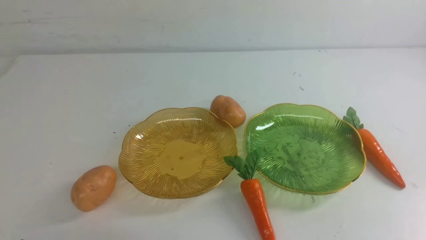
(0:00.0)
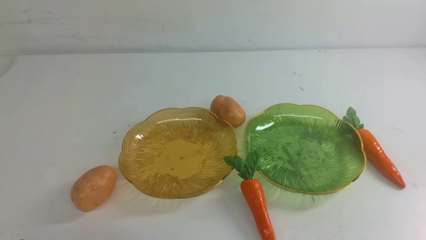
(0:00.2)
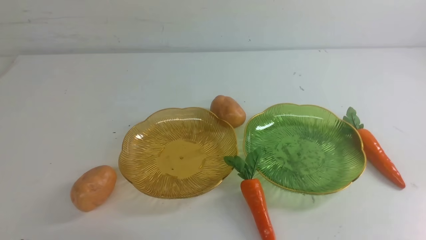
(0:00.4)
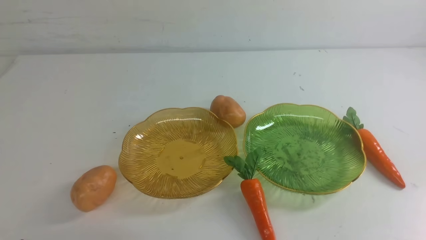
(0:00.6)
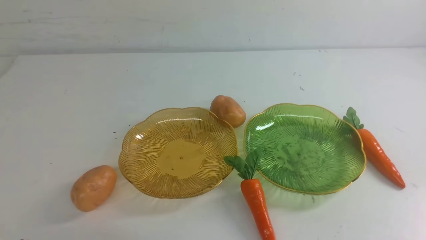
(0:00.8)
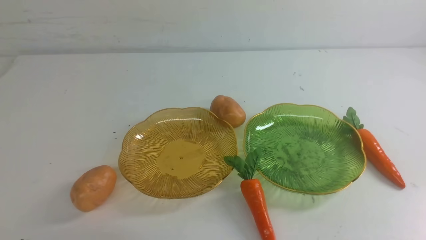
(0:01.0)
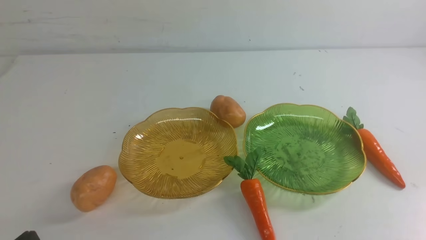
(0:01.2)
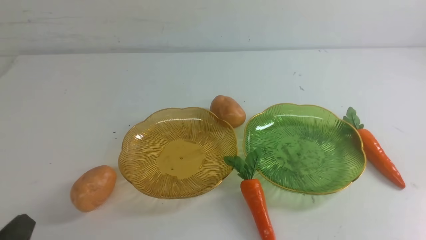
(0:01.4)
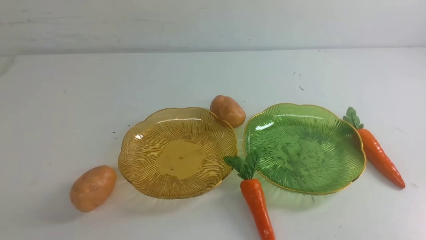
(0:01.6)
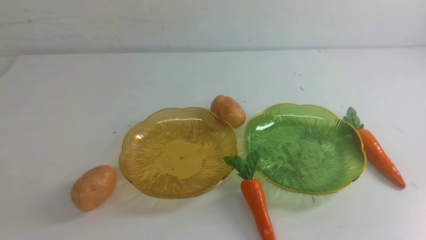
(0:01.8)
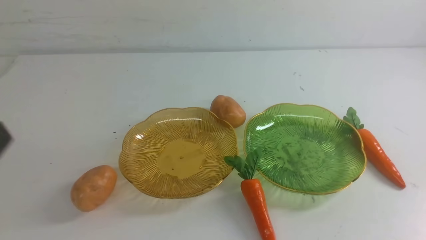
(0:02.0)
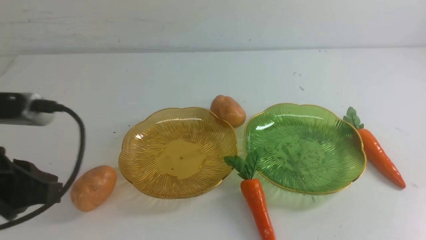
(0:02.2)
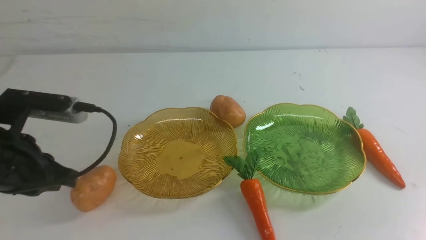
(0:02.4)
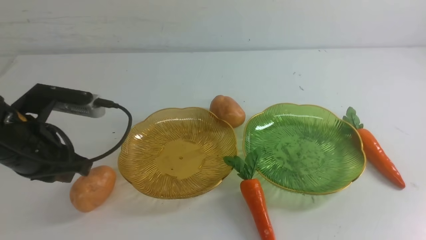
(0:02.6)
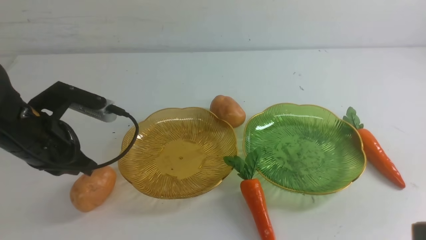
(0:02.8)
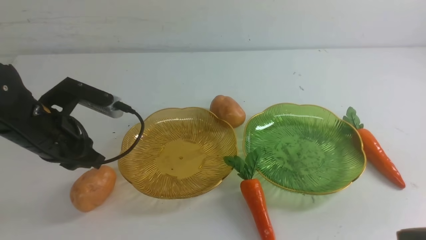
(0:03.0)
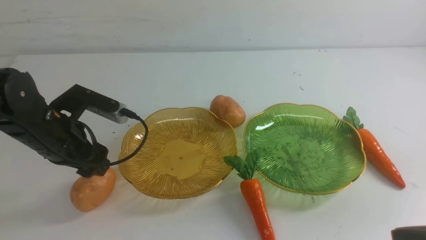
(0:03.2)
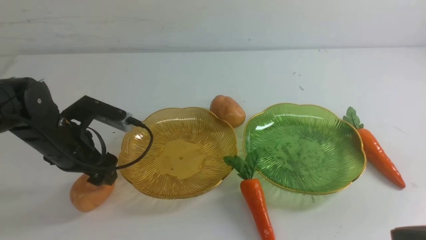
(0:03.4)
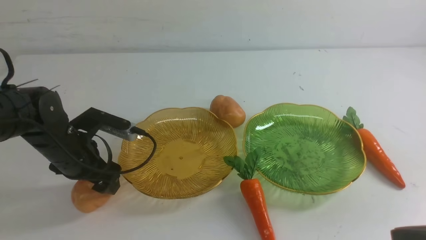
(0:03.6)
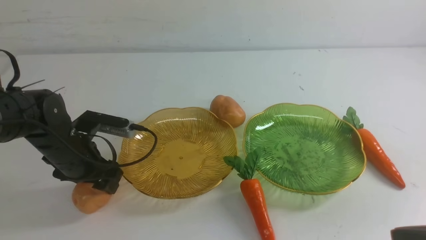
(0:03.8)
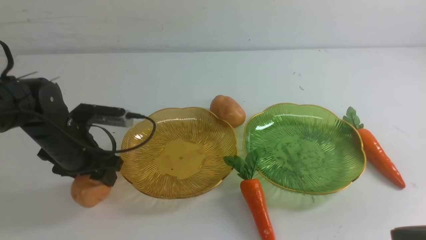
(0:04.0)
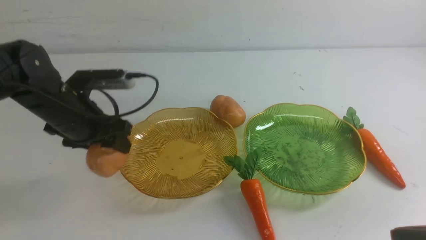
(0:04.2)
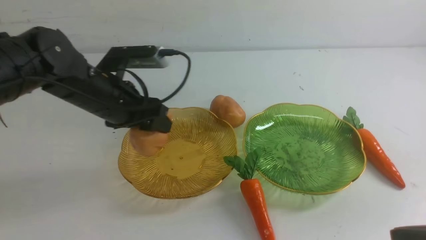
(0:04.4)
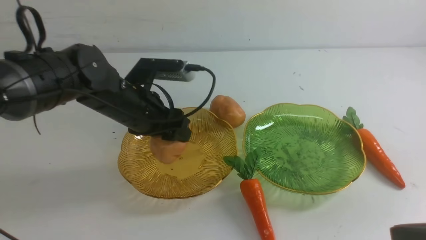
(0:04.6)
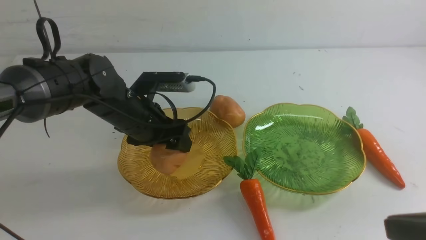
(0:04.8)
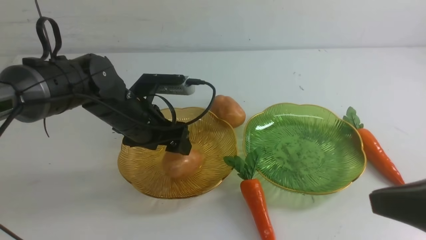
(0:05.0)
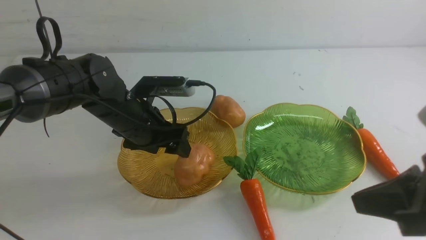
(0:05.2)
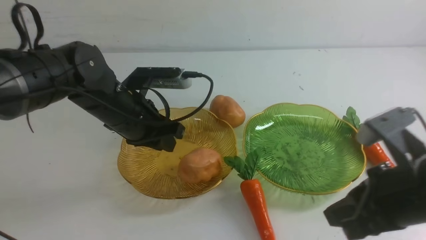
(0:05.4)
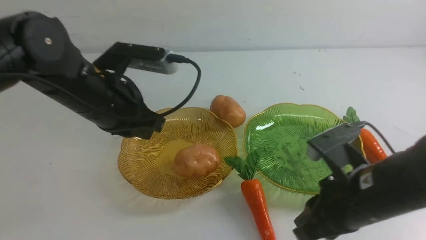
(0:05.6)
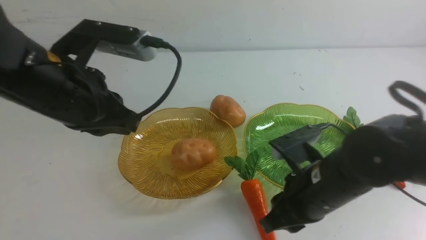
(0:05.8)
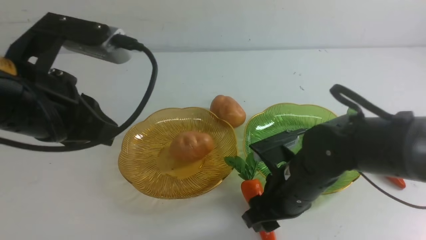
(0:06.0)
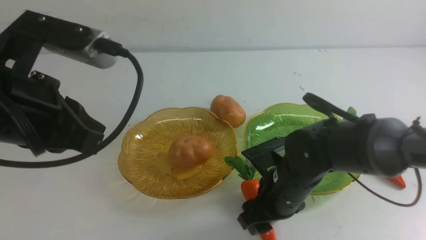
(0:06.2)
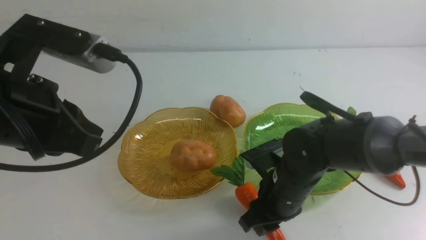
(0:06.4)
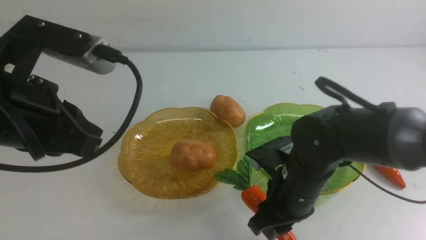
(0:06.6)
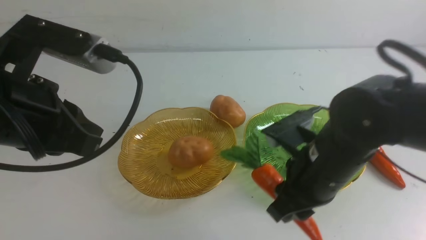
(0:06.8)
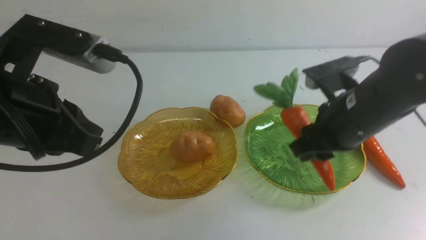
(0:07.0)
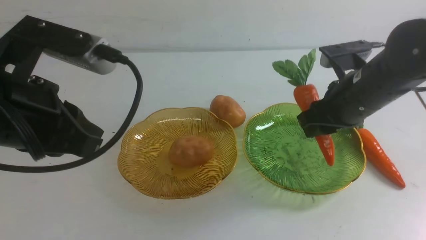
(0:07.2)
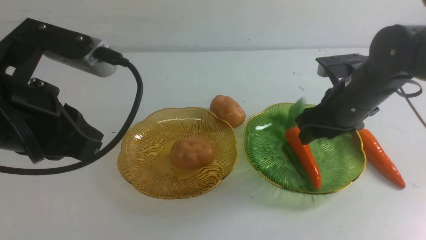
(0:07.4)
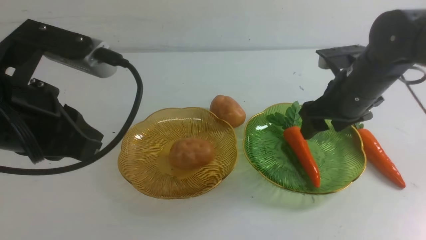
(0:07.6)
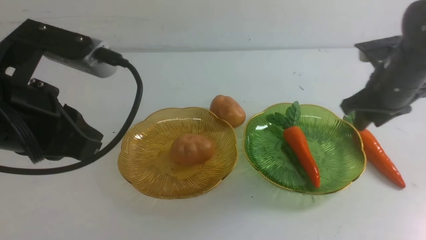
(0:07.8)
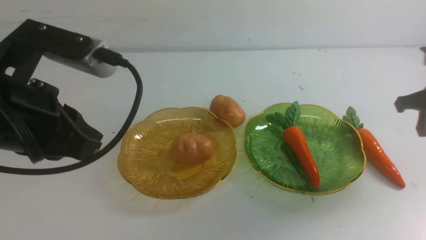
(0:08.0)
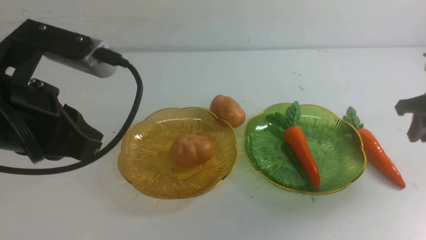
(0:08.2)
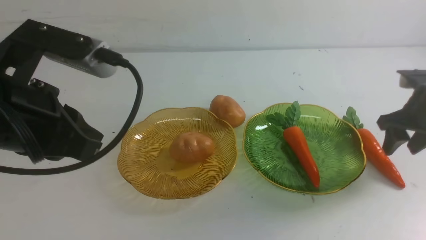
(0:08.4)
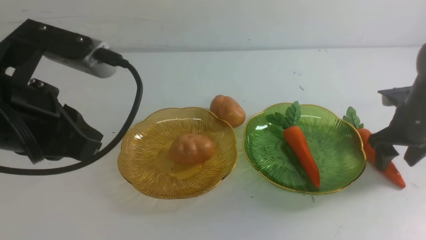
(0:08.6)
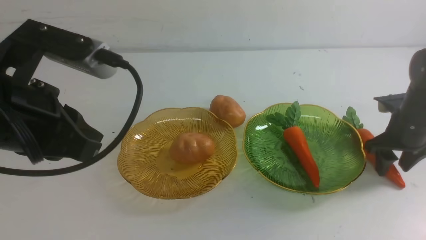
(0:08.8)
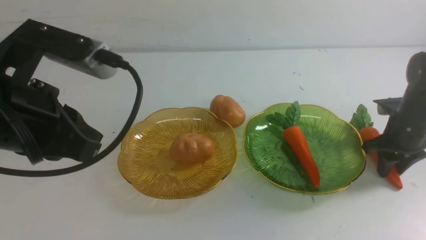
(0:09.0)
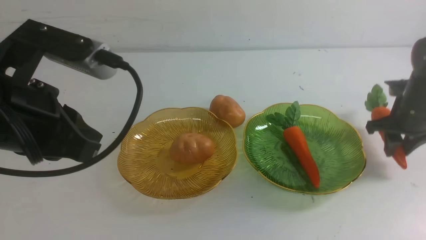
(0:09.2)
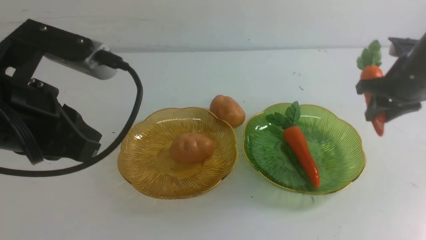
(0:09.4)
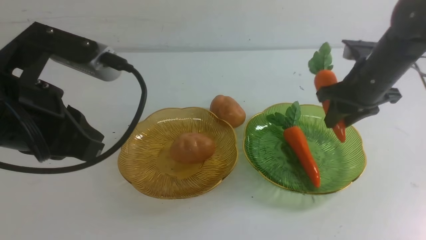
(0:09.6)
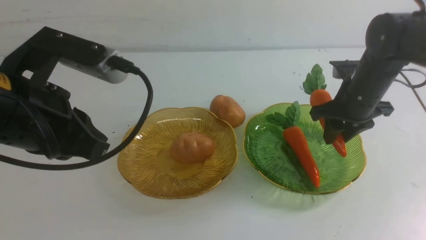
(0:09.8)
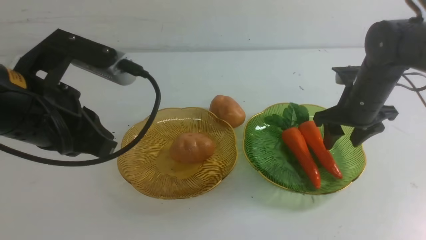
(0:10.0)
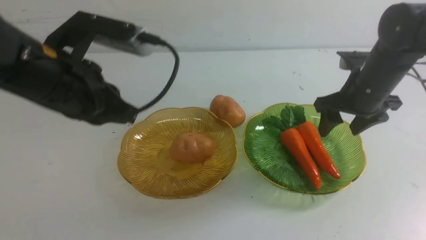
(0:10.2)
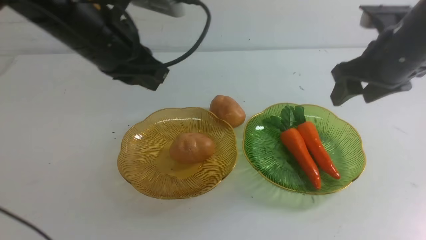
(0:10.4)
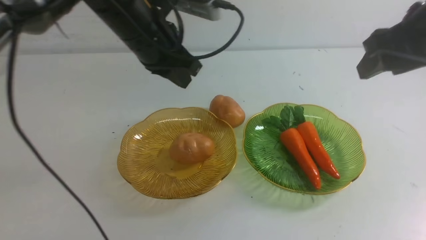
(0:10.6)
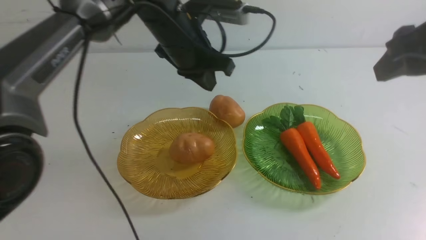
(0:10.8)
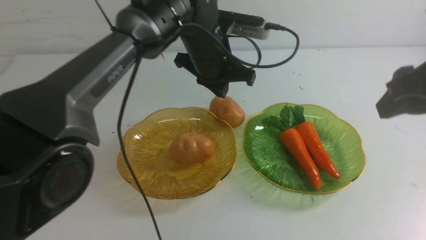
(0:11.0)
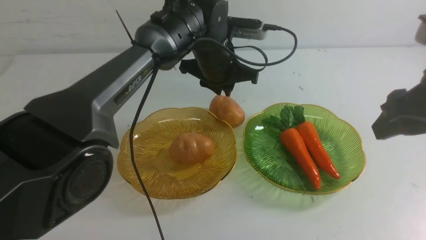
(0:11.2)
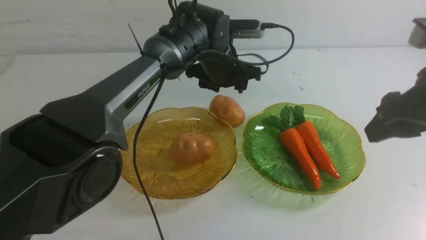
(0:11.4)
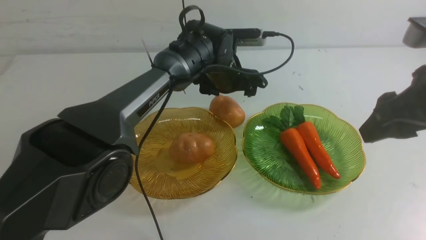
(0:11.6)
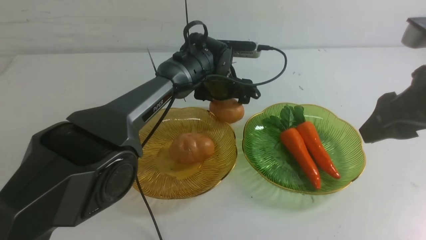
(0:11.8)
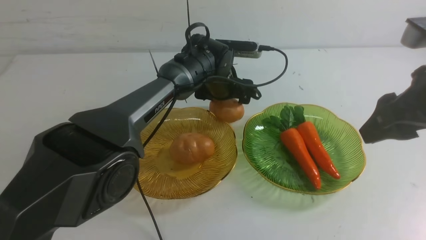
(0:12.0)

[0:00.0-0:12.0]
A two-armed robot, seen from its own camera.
Step, 0:00.0 to 0:05.2: Grab a potato with your left arm and put it on the left plate.
Step, 0:05.4 to 0:10.2: use the right arm to grab a carrot and put it into the right plate.
0:01.6 to 0:03.0: The left gripper goes roughly 25 cm forward.
0:03.0 to 0:04.4: The left gripper shifts approximately 10 cm to the right and forward.
0:04.4 to 0:06.0: The right gripper is displaced forward, to the left and downward by roughly 25 cm, and opens up; the left gripper moves backward and upward, roughly 20 cm, and closes up.
0:06.0 to 0:07.6: The right gripper travels to the right and forward by about 25 cm, and closes up.
0:07.6 to 0:09.0: The right gripper goes about 5 cm to the left, goes downward and returns, some 10 cm each way, and opens and closes again.
0:09.0 to 0:10.4: The left gripper heads forward and to the right, covering roughly 20 cm. Meanwhile the right gripper moves upward and backward, some 15 cm, and opens.
0:10.4 to 0:12.0: The right gripper moves backward, some 5 cm. Meanwhile the left gripper heads downward, forward and to the right, covering roughly 20 cm, and opens up.

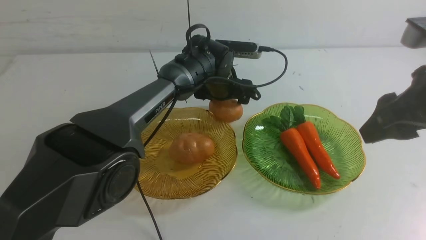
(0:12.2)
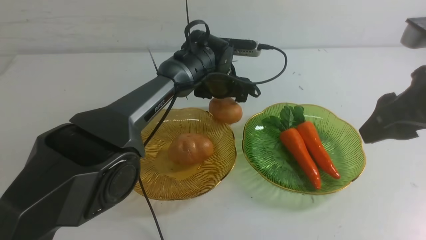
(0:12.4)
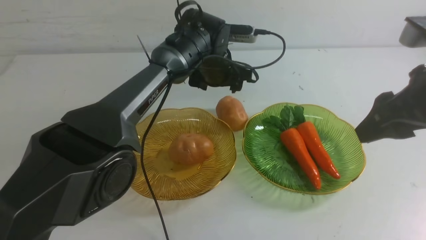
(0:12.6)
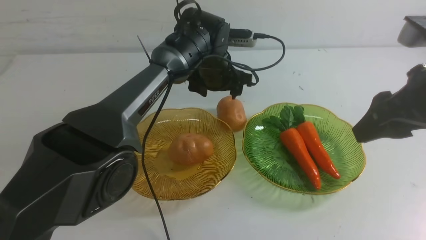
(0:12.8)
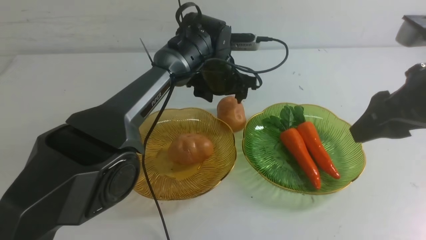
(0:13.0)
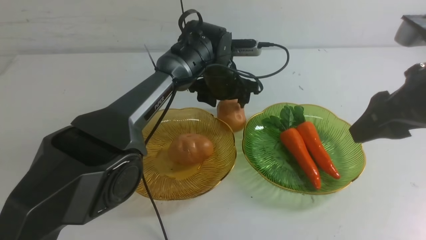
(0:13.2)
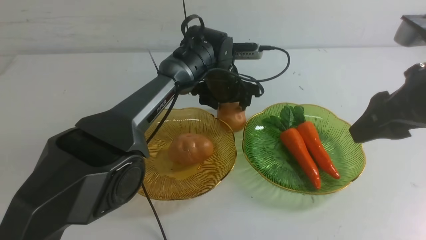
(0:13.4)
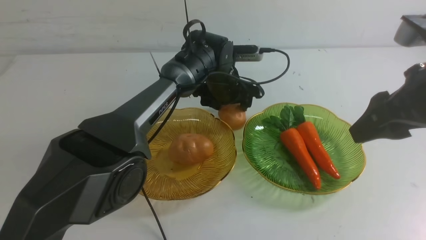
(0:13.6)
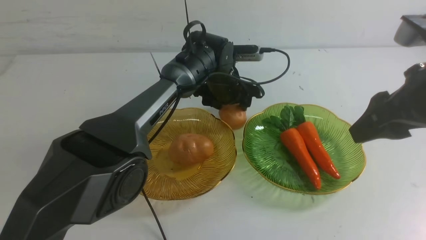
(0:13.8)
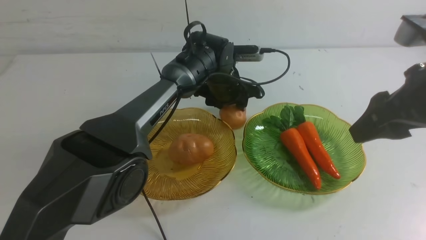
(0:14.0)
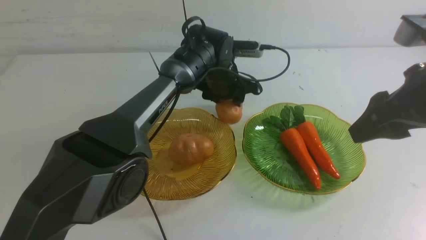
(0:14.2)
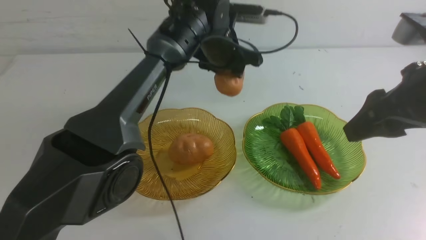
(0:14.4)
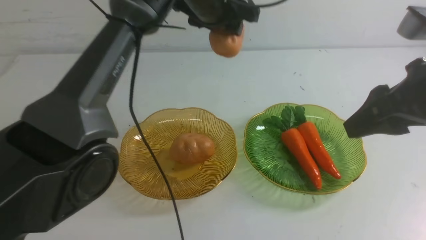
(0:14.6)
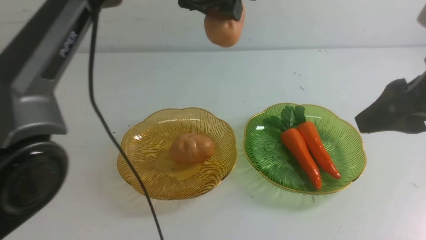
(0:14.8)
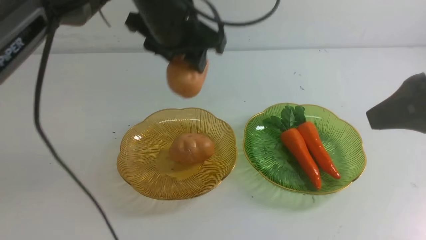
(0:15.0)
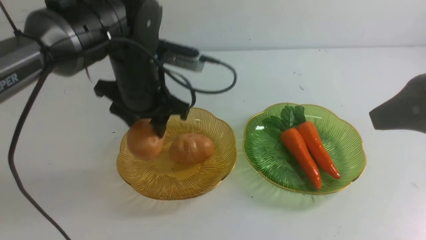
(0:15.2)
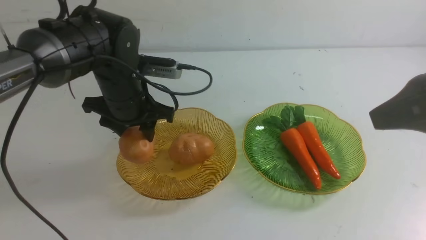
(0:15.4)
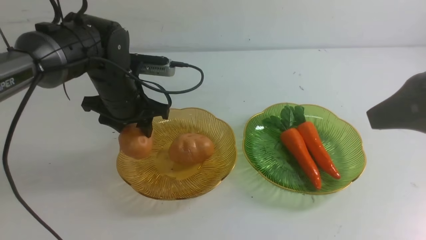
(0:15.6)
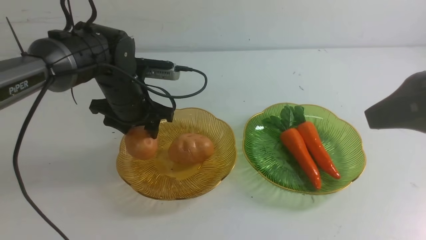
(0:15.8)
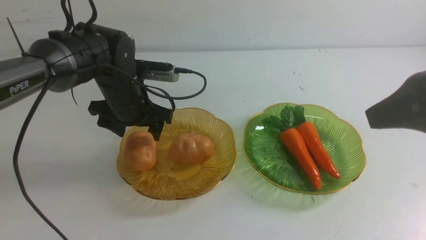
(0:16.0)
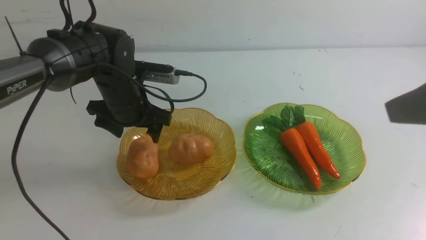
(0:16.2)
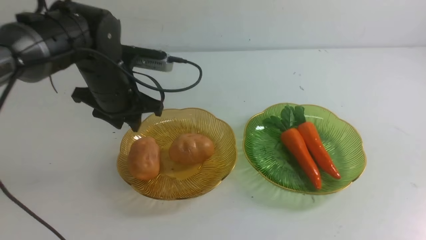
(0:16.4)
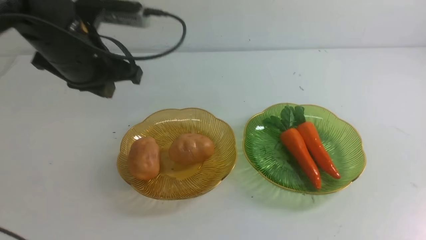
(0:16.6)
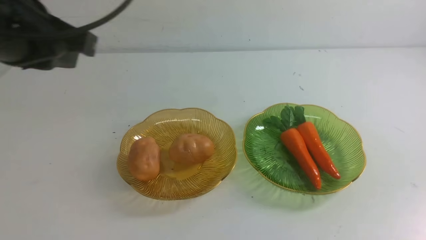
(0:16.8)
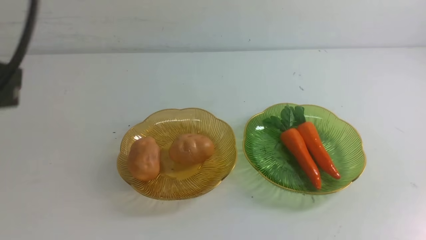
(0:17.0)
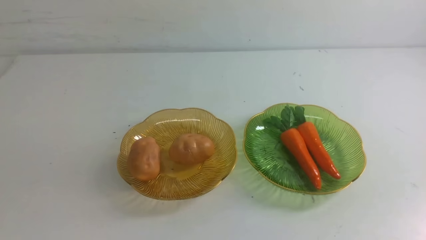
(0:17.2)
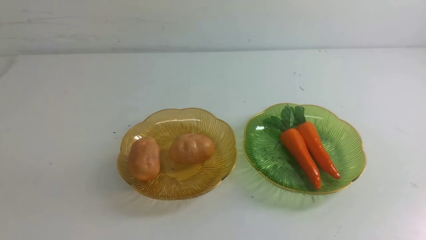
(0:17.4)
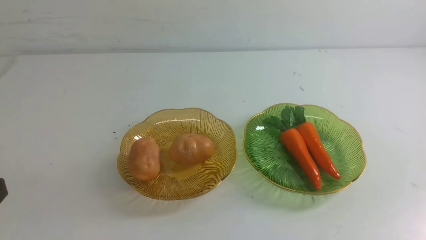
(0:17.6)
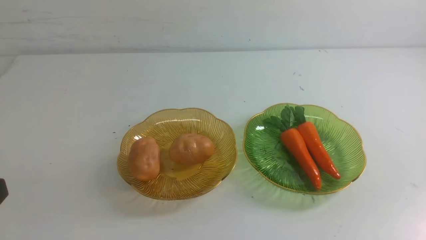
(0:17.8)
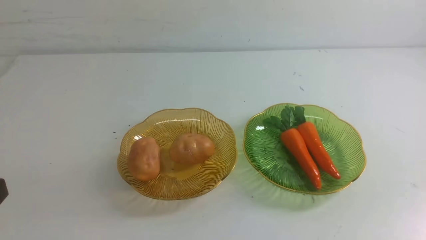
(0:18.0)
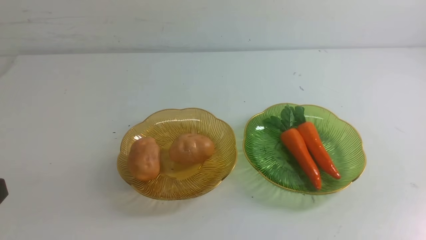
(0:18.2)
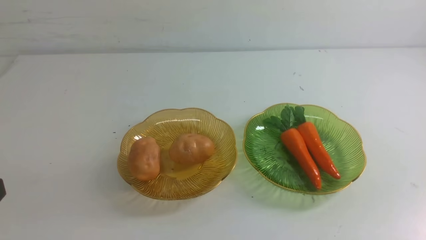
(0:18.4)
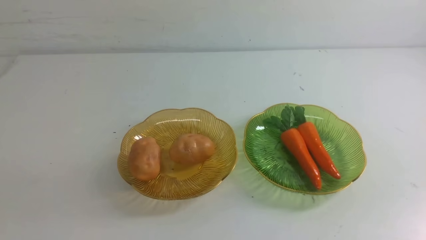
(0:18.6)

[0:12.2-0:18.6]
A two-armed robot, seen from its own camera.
Step, 0:12.2 to 0:16.4: Grab a potato with your left arm and put it on the left plate.
0:12.2 to 0:13.8: The left gripper closes.
0:13.8 to 0:15.4: The right gripper moves about 5 cm. Meanwhile the left gripper heads to the left and backward, covering roughly 20 cm, and moves approximately 20 cm upward and comes back.
0:15.4 to 0:17.0: The right gripper goes approximately 20 cm backward and to the right, and closes, while the left gripper moves backward, about 30 cm, and closes its fingers.
0:17.0 to 0:18.6: The left gripper travels downward by about 5 cm.
